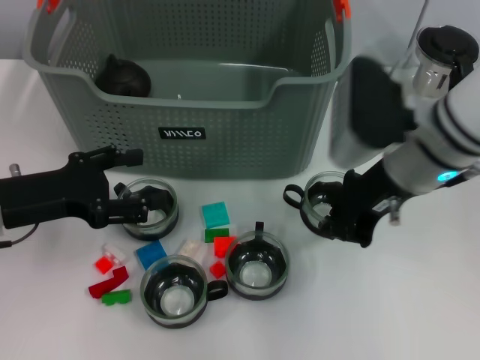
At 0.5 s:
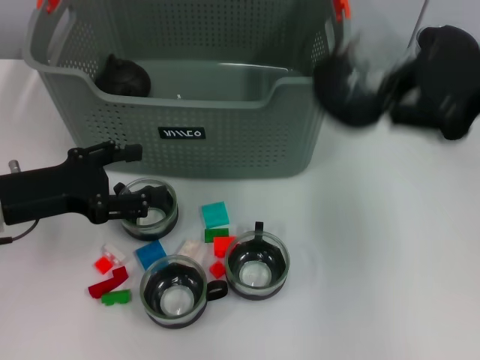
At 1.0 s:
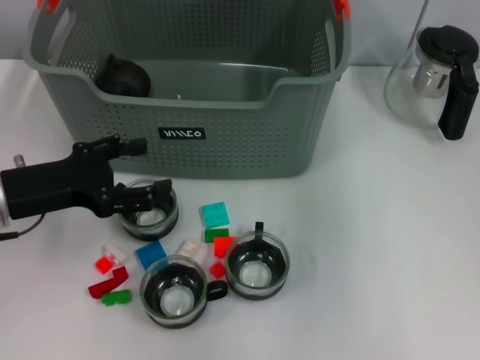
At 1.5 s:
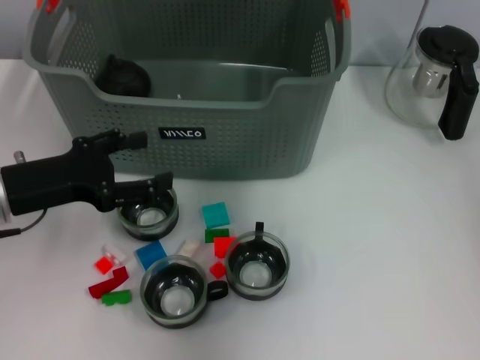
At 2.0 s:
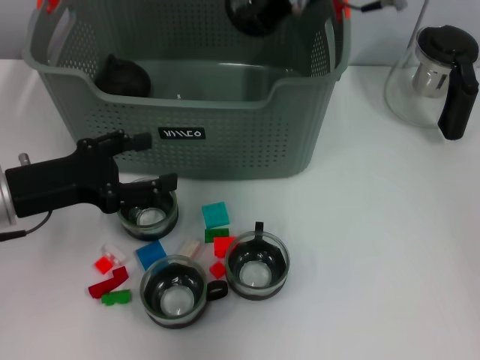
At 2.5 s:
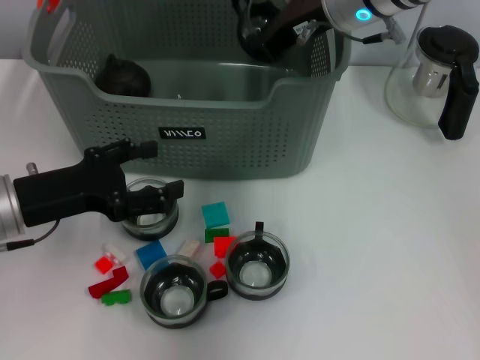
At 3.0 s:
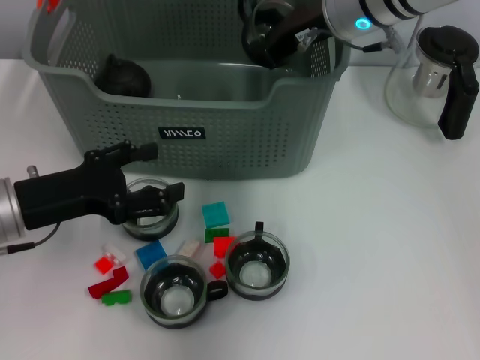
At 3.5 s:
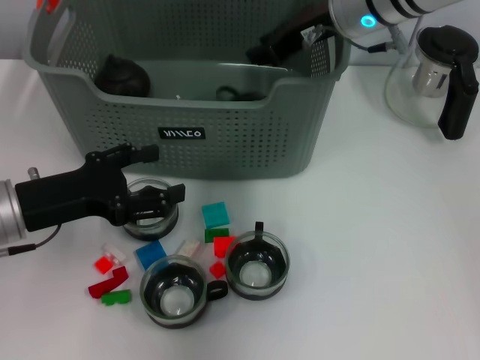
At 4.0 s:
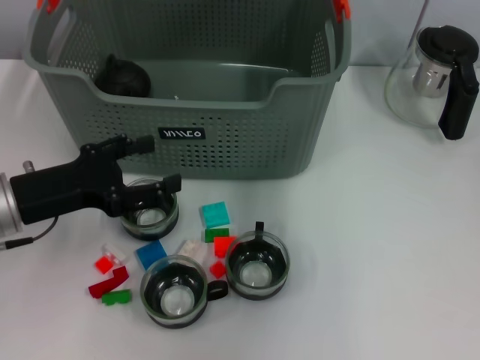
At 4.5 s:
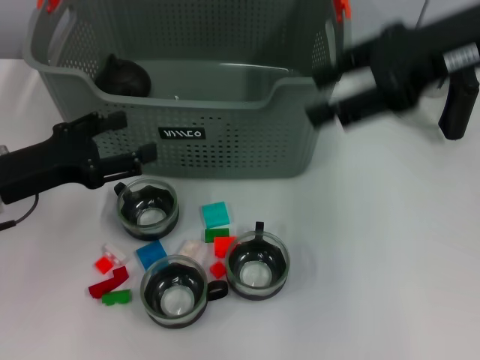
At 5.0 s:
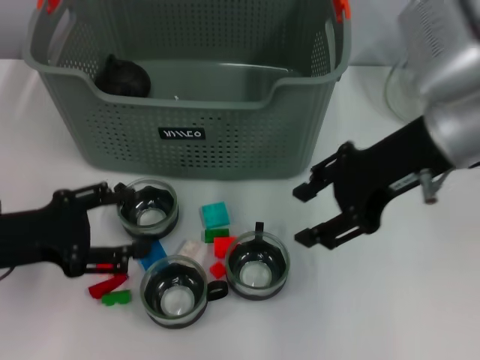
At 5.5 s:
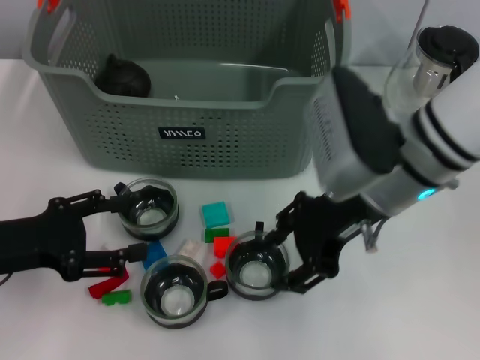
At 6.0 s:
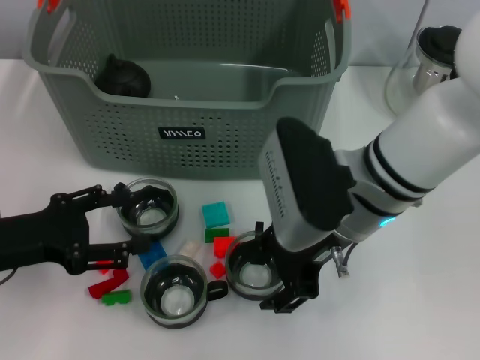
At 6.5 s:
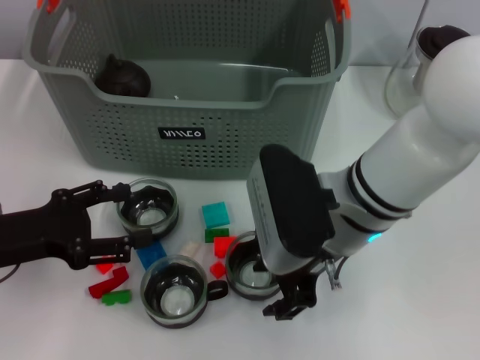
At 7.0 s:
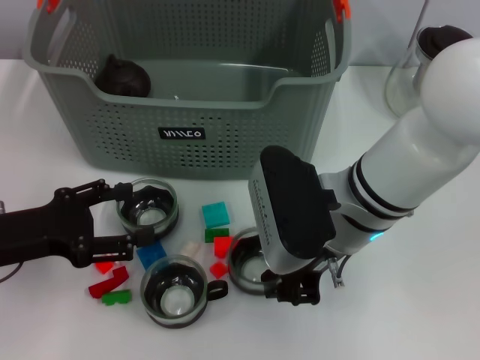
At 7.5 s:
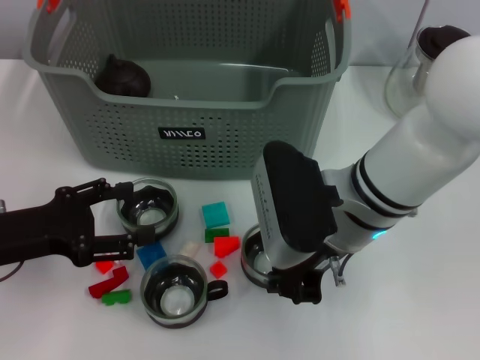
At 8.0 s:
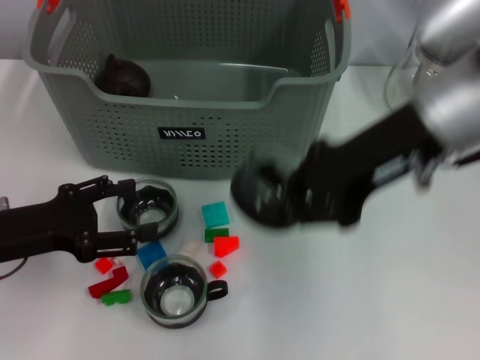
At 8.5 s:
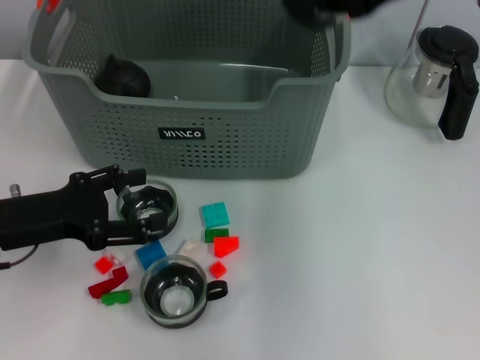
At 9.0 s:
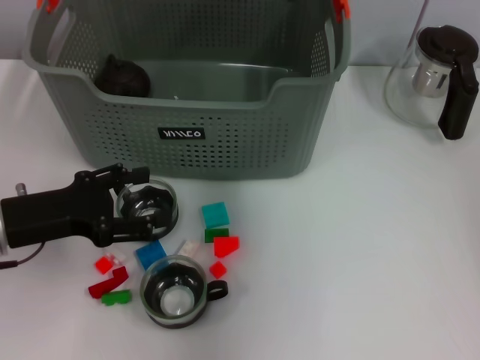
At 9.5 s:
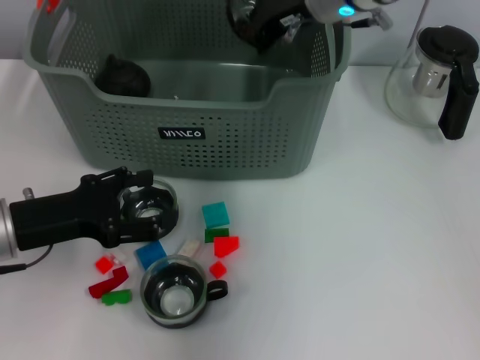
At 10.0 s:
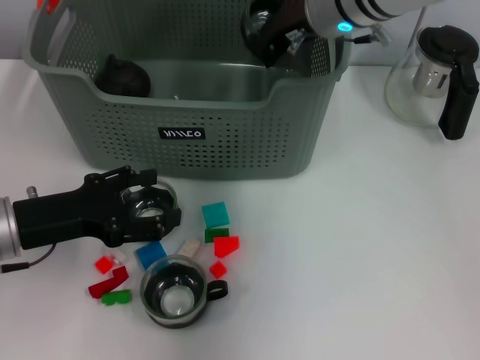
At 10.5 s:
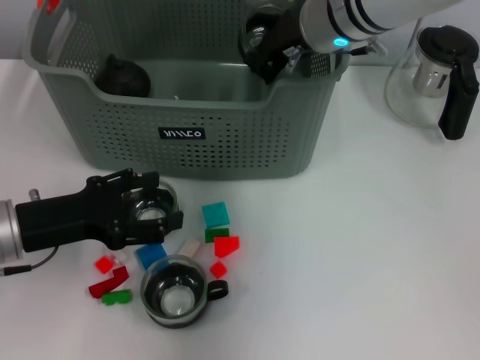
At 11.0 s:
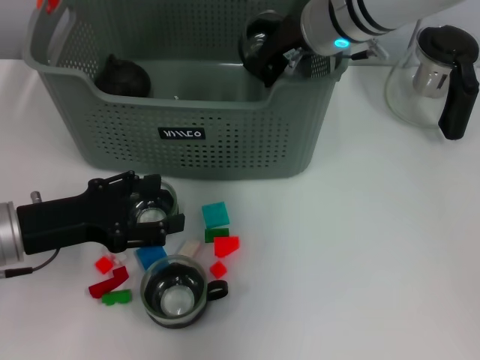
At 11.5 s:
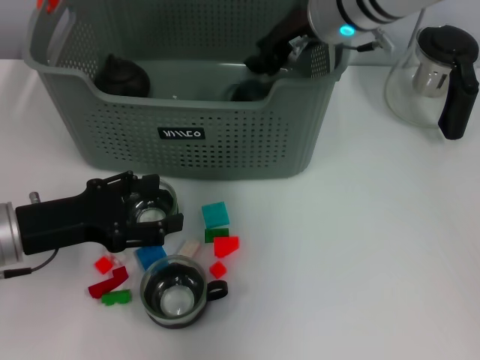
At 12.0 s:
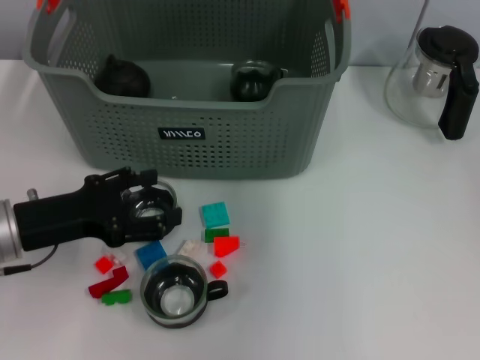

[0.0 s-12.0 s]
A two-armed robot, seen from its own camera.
Task of the whole recording: pick up the teacup on the table and place it into the storage bin, pick up the block on the table and place it into the storage bin.
Step, 0.0 to 3.0 s: Place the cup in the storage box with right gripper.
Step, 4.0 to 7.0 s: Grasp the cup with right gripper.
Step, 7.5 to 11.0 s: Place the cup in the storage box with right gripper.
0.0 to 2.0 s: The right gripper moves forward, upward and to the left, some 15 cm.
2.0 to 4.0 s: The right gripper moves to the right, some 5 cm, and opens up.
4.0 to 6.0 s: The right gripper goes roughly 20 cm downward, backward and to the left.
6.0 to 8.0 s: The right gripper travels upward and to the right by approximately 10 cm, and closes its fingers.
8.0 to 10.0 s: The right gripper heads forward and to the left, covering roughly 15 cm.
10.0 to 12.0 s: The right gripper shifts about 10 cm upward and to the right, and opens up.

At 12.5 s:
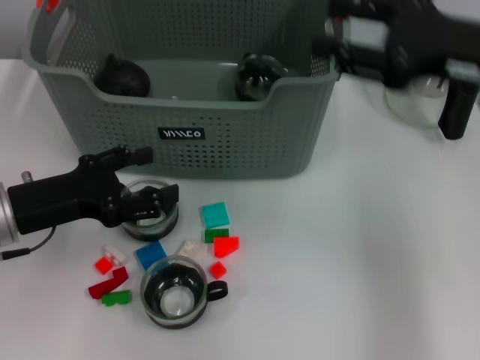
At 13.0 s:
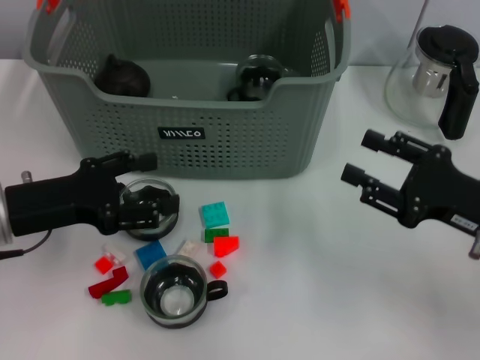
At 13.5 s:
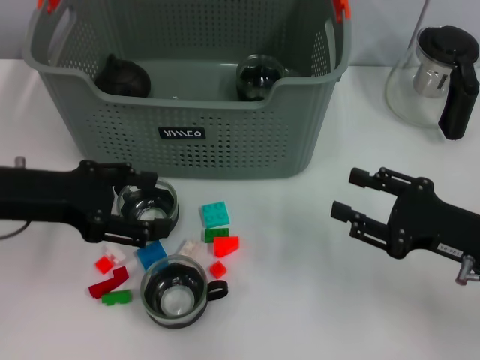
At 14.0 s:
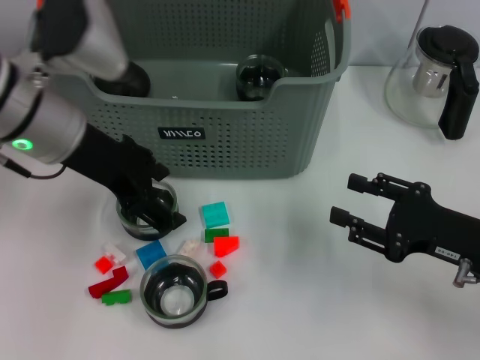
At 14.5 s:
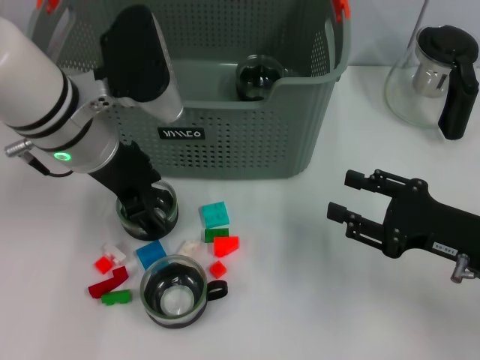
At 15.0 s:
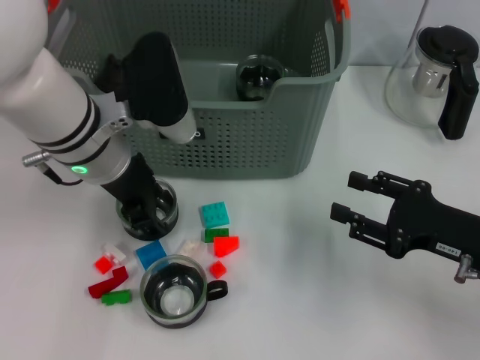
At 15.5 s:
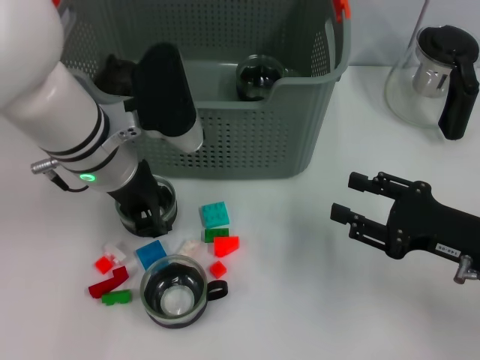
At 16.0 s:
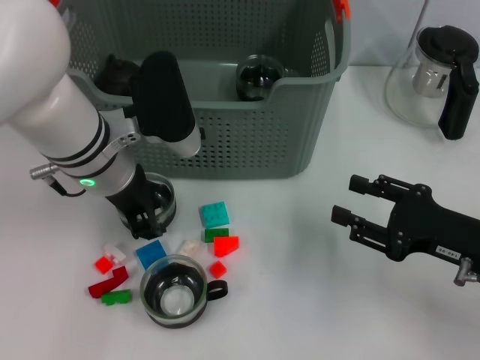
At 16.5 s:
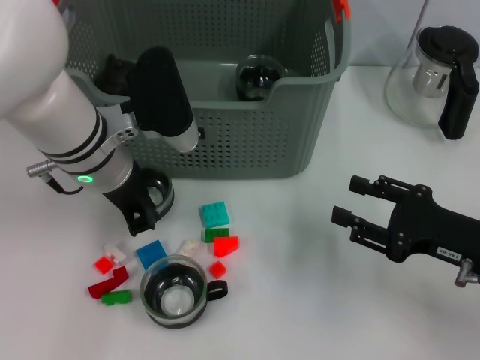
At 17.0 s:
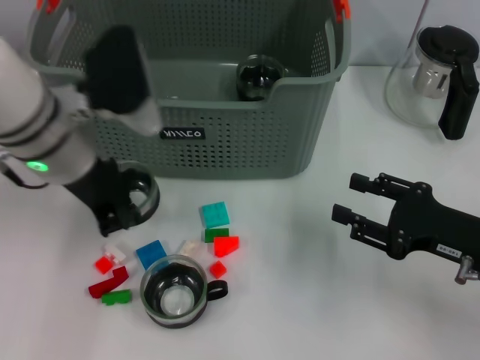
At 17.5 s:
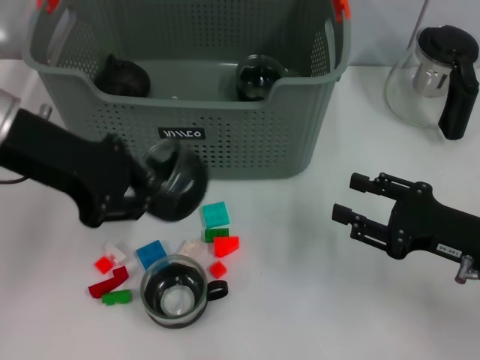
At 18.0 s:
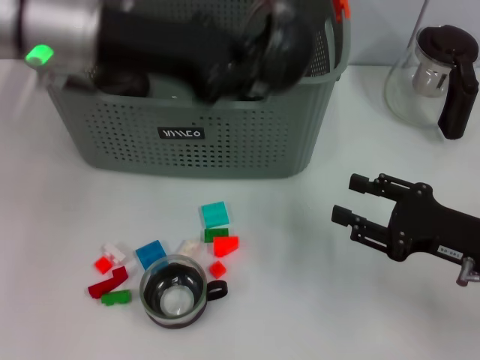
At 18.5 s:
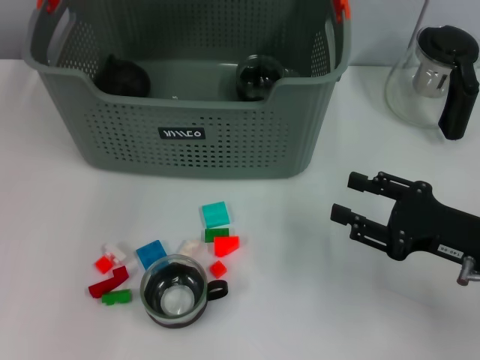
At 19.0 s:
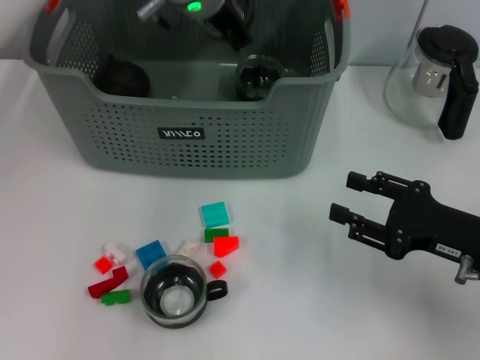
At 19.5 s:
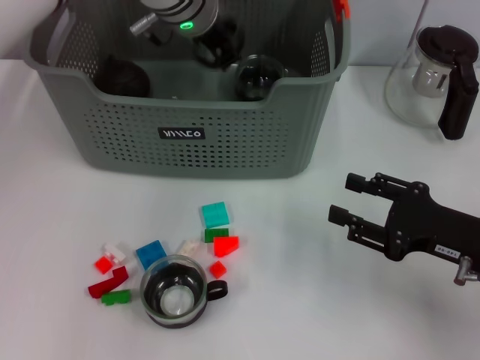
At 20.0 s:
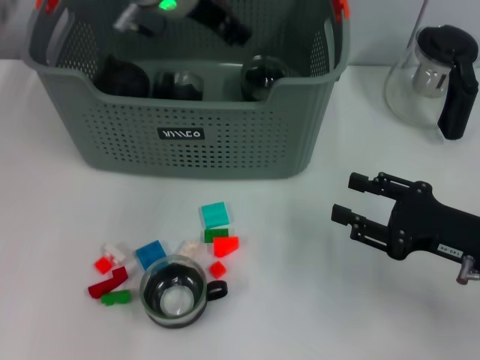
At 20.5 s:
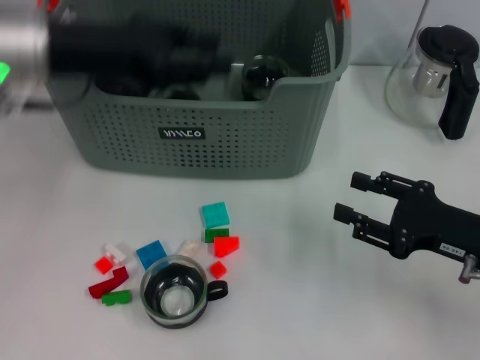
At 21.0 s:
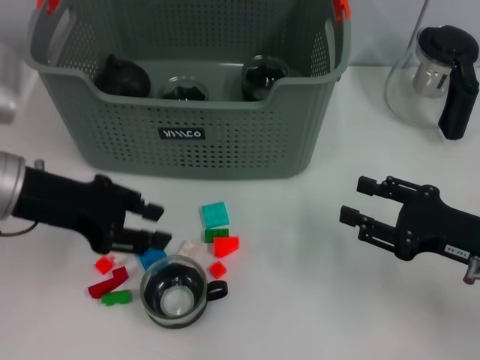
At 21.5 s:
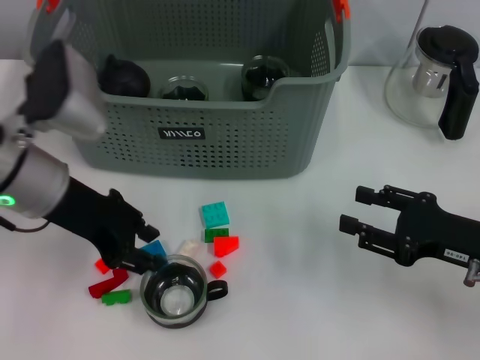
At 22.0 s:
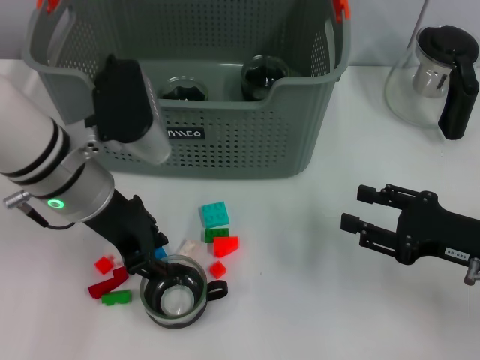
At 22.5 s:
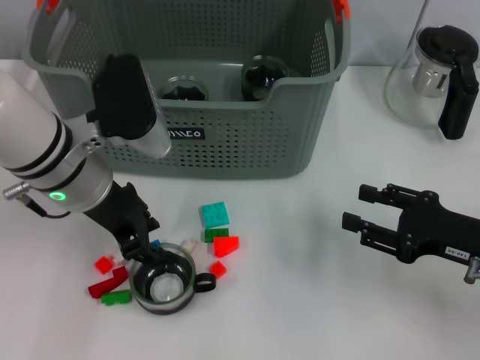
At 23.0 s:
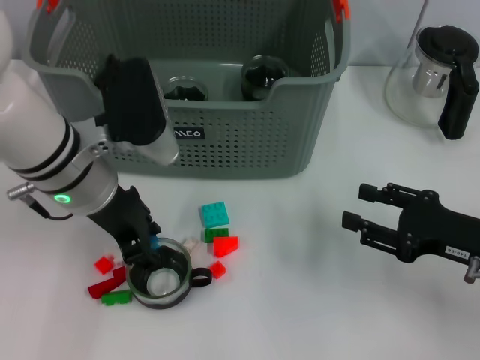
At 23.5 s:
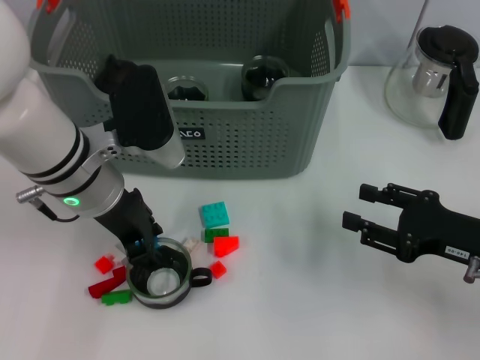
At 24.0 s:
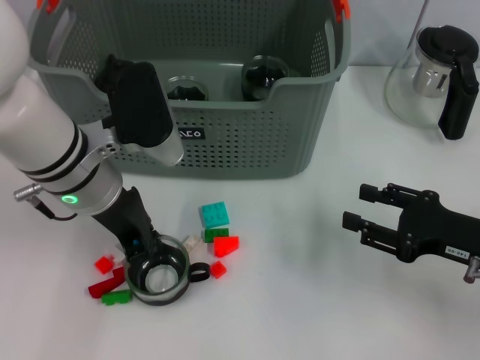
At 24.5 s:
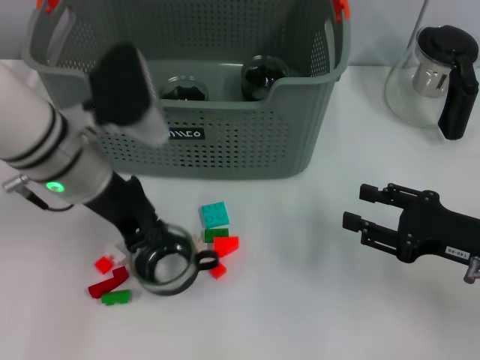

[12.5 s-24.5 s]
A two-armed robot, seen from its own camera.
Task of the whole recording: pick up the teacup on the table and place it into the storage bin, pick up the block on the table and place it into the storage bin.
Step, 12.5 to 16.5 s: Grasp the cup with left gripper.
Step, 17.0 to 19.5 s: Place the cup in the storage box with left gripper.
Step, 20.0 to 24.0 s: Grasp the cup with left gripper.
12.5 to 14.5 s: The right gripper shifts approximately 15 cm downward and backward; the left gripper travels to the right, upward and forward by roughly 15 cm.
14.5 to 16.5 s: The left gripper closes.
16.5 to 18.5 s: The left gripper is displaced upward and forward by approximately 20 cm.
18.5 to 20.5 s: The left gripper heads to the left, backward and downward, covering some 15 cm, and opens up.
20.5 to 22.5 s: The left gripper shifts some 10 cm downward and to the right.
22.5 to 24.5 s: The left gripper closes its fingers.

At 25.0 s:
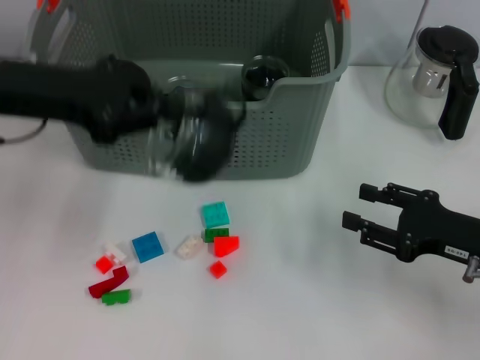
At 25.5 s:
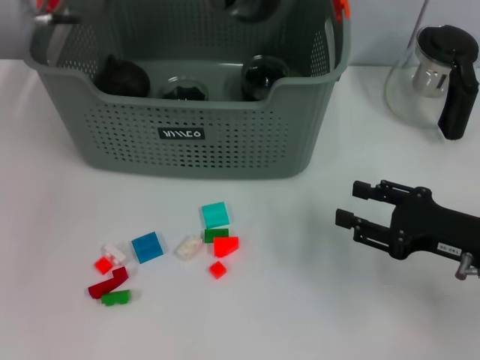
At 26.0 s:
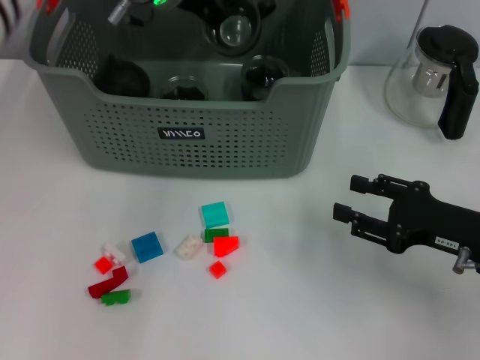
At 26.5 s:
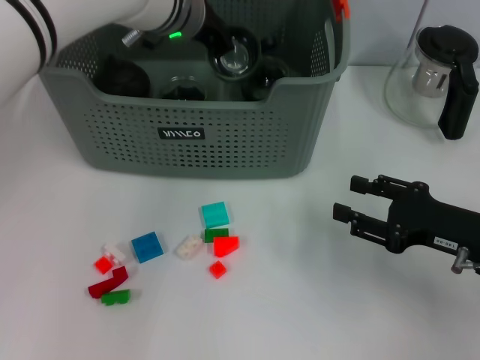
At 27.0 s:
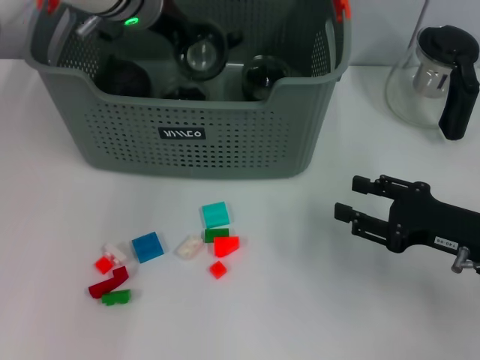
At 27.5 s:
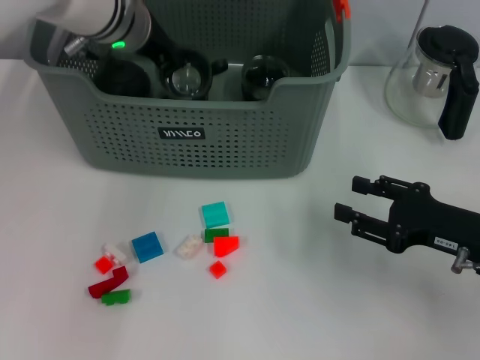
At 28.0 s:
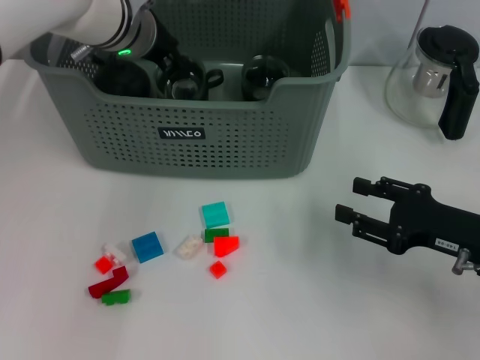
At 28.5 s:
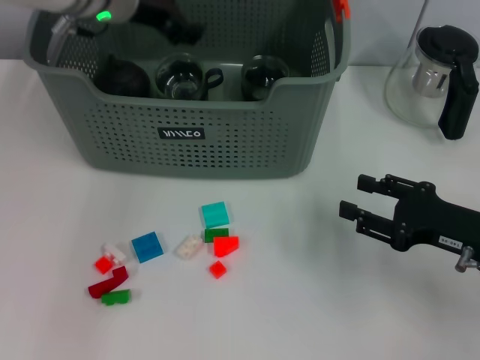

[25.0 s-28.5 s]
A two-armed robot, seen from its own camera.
Task of the whole recording: pick up the teacup on the table and place it into the storage bin, pick up the block on the table and place it into the storage bin.
Step, 25.0 to 28.0 s: Place the cup in the storage box with left gripper.
25.0 to 27.0 s: The left gripper shifts roughly 20 cm forward and to the right.
27.0 to 28.5 s: The left gripper opens its fingers.
